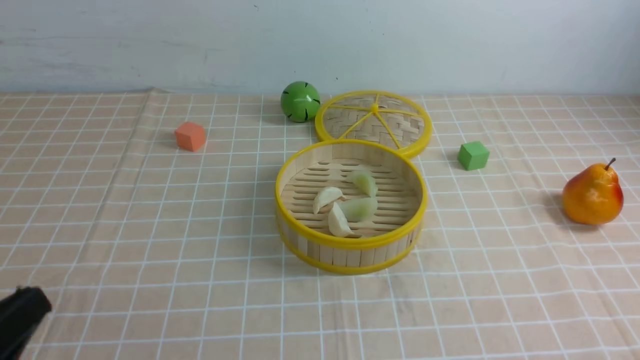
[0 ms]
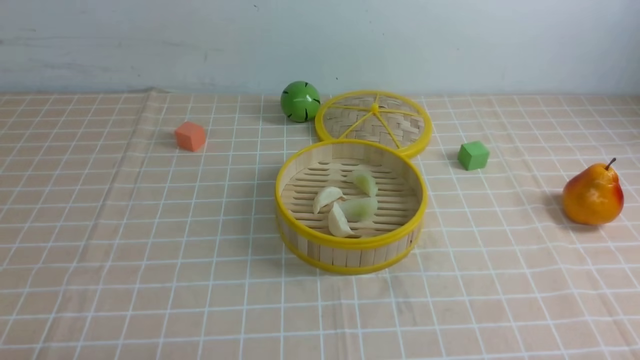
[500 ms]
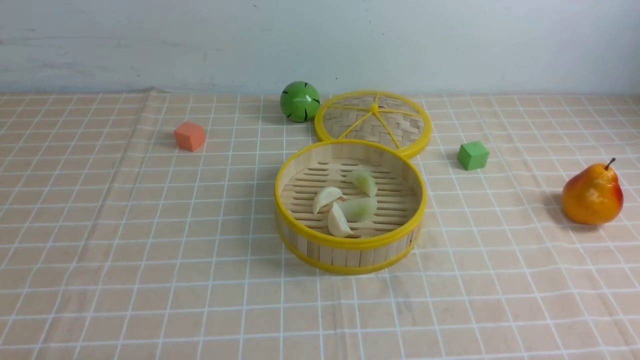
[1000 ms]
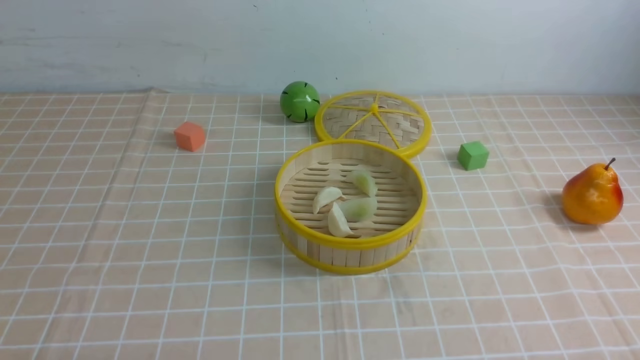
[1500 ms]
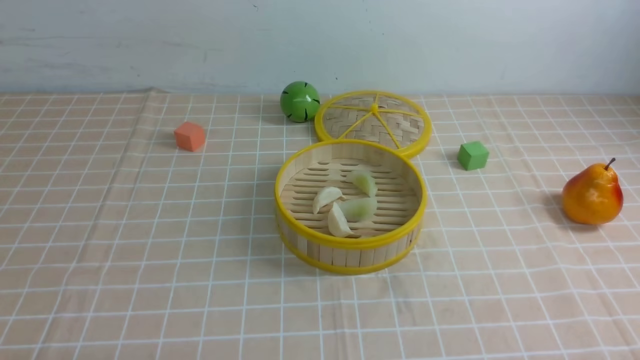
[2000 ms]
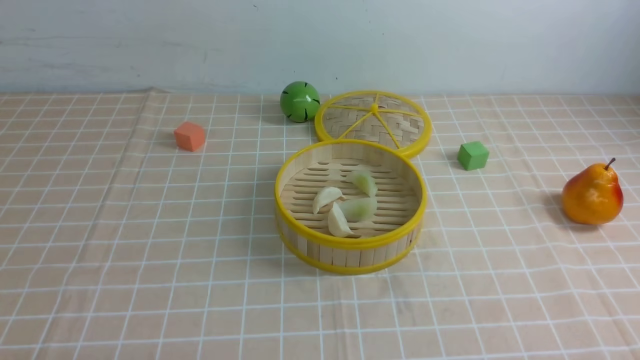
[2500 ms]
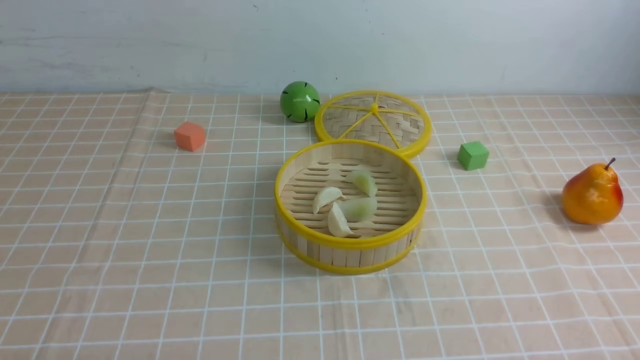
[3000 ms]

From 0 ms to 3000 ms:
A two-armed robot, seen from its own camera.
Task of the whole recording: put the dumplings into the steamer on the table with the brown tablecloth.
From 0 ms to 1500 ms: The left gripper travels downward by approximately 10 cm.
From 1500 ms to 3000 ms: Both grippers stay about where they are.
